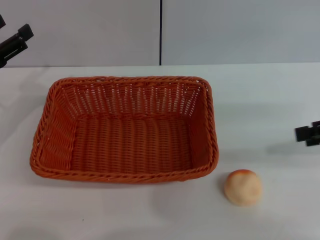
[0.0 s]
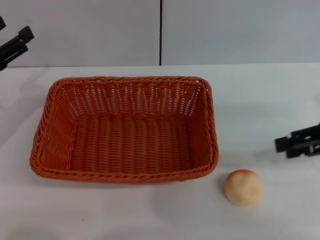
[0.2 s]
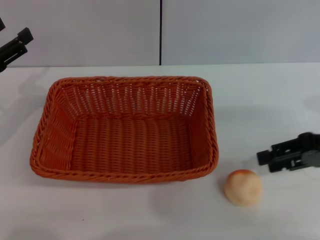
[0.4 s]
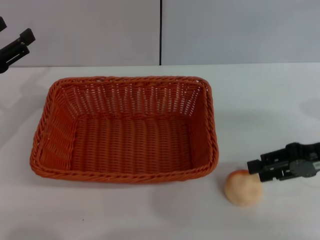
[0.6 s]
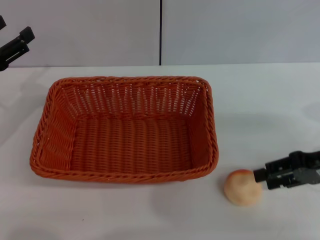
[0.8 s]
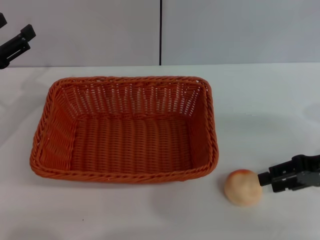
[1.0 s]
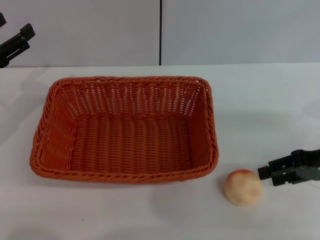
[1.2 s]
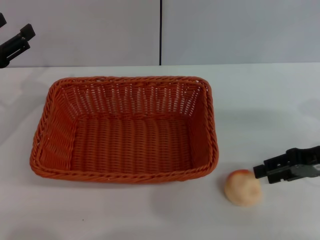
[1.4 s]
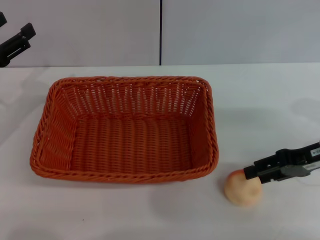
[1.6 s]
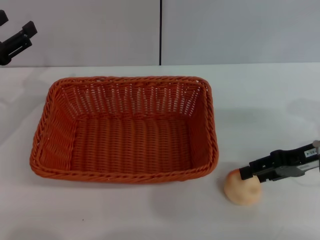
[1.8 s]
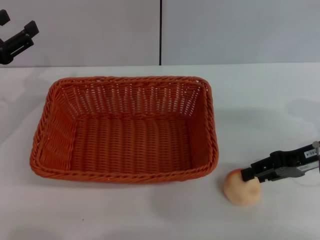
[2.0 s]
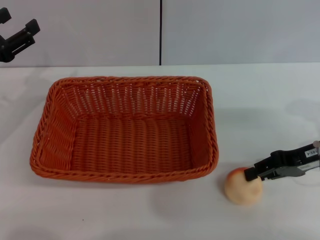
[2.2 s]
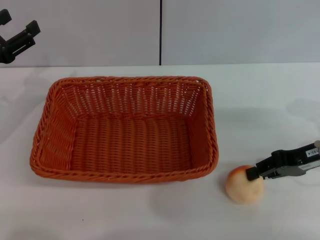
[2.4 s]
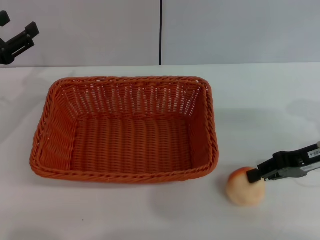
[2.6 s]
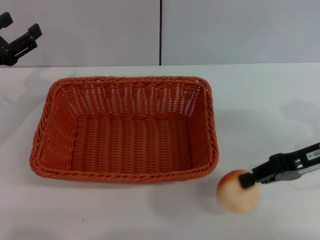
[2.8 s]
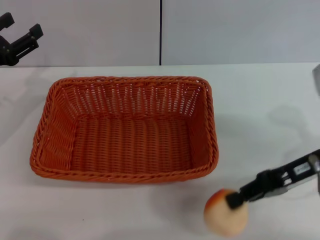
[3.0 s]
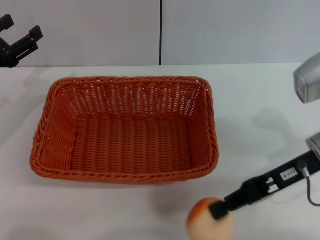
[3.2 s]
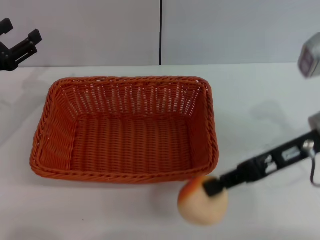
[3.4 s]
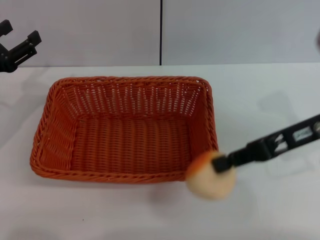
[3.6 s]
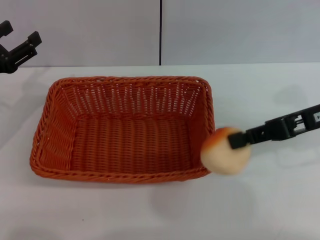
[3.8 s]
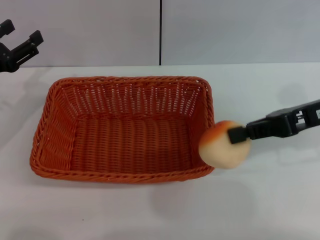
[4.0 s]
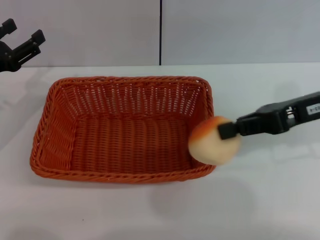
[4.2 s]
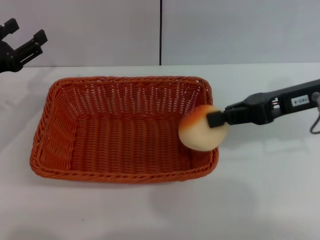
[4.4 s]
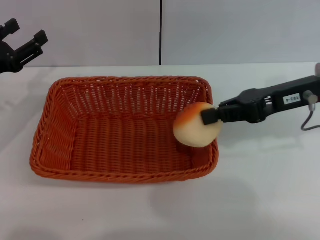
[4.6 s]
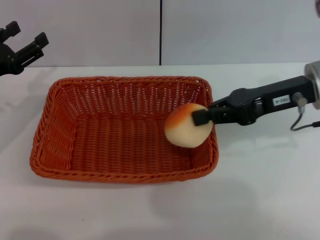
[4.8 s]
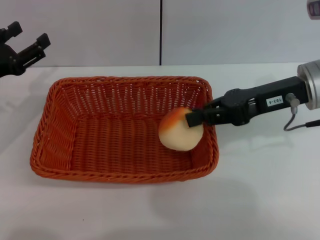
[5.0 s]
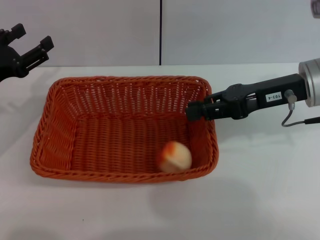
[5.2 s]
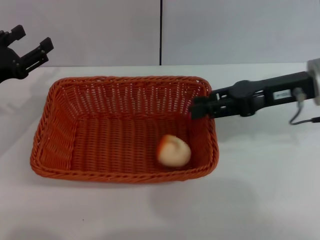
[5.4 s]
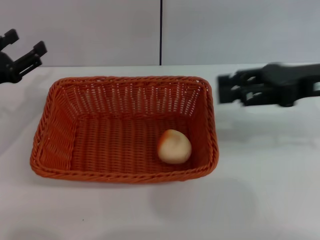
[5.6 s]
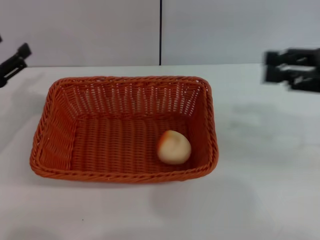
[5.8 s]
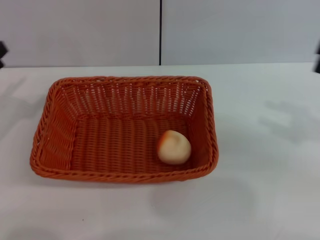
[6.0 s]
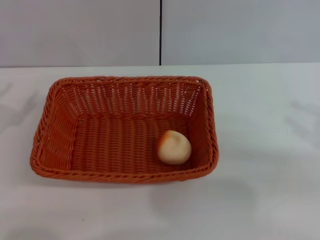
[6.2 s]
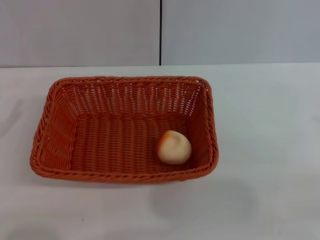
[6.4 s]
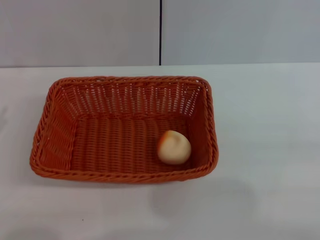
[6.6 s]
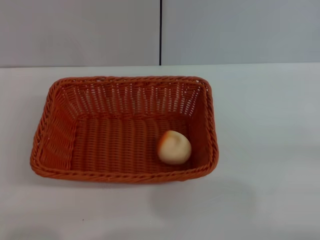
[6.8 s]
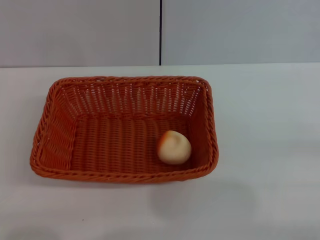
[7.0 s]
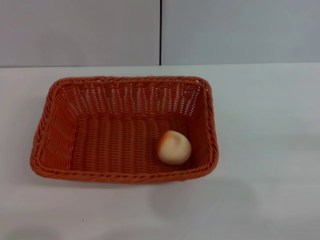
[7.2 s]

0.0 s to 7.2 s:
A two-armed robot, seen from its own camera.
Step, 0.0 to 3.4 s: Pick up the egg yolk pastry with the right gripper.
Step, 3.6 to 5.6 s: Place the egg yolk pastry into the basket with the right gripper.
0.0 to 1.4 s: The right gripper goes roughly 10 cm downward.
1.4 to 2.8 s: The right gripper closes up.
2.8 to 4.4 s: The right gripper is displaced upward by roughly 5 cm.
4.4 to 5.8 s: The right gripper goes approximately 5 cm to the right, and opens.
5.8 to 7.2 s: The left gripper goes roughly 10 cm backward, while the right gripper heads downward, backward and to the right, covering approximately 20 cm.

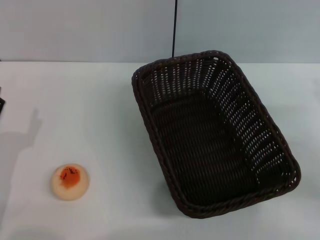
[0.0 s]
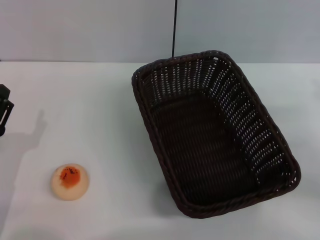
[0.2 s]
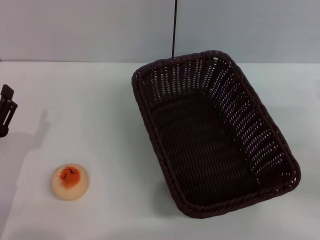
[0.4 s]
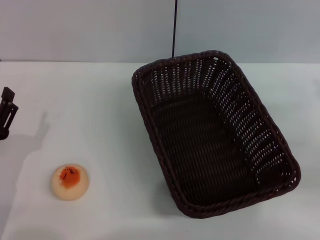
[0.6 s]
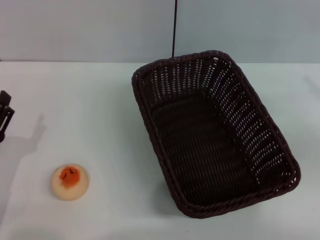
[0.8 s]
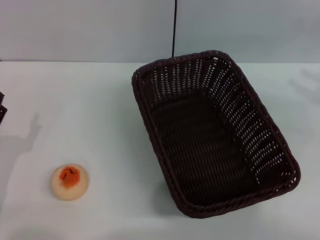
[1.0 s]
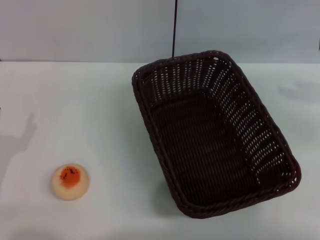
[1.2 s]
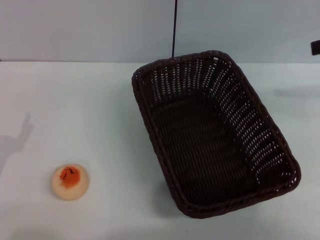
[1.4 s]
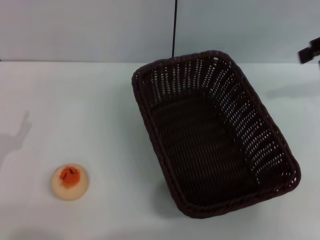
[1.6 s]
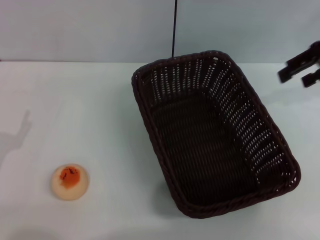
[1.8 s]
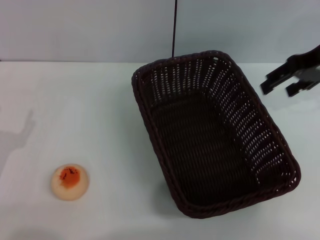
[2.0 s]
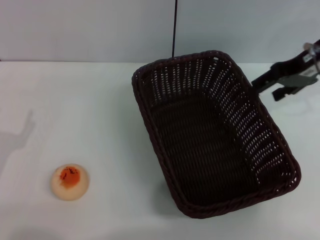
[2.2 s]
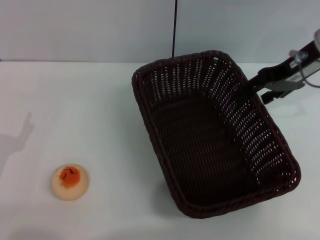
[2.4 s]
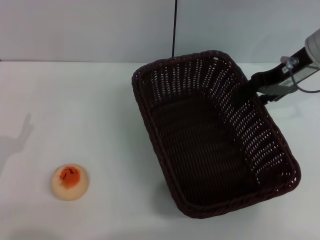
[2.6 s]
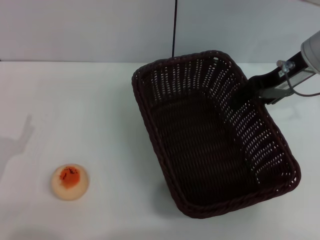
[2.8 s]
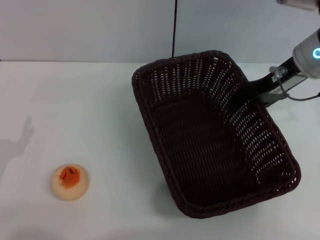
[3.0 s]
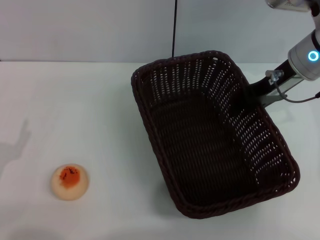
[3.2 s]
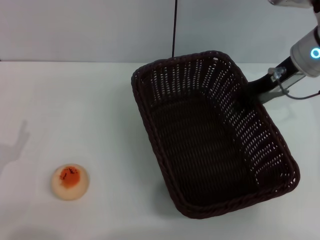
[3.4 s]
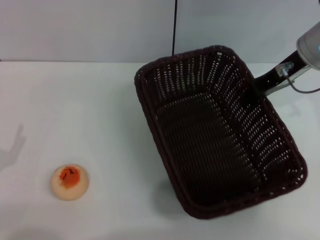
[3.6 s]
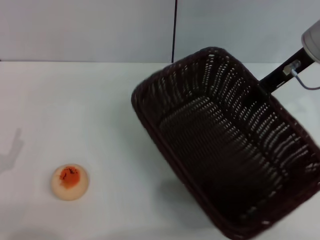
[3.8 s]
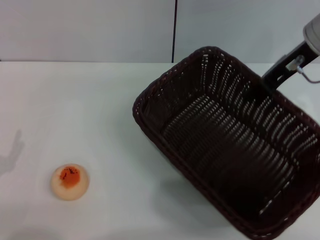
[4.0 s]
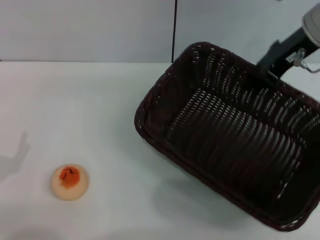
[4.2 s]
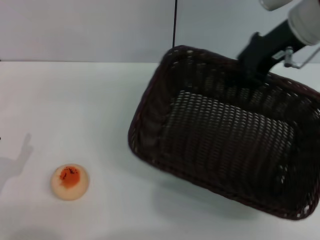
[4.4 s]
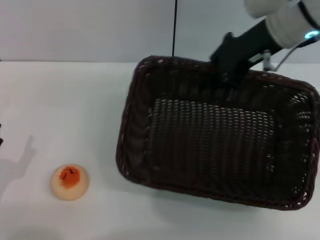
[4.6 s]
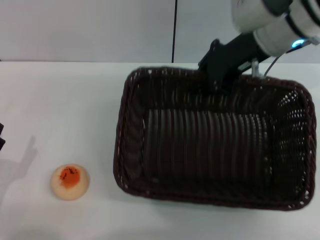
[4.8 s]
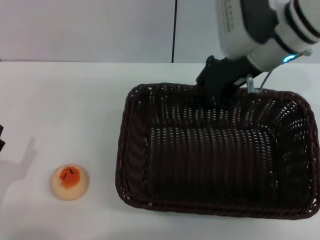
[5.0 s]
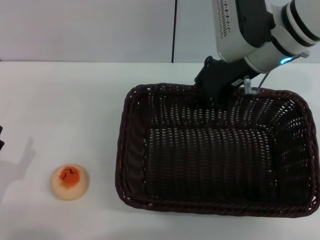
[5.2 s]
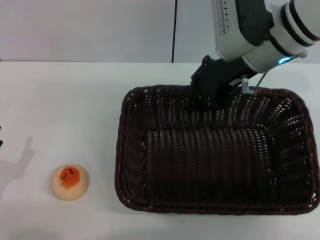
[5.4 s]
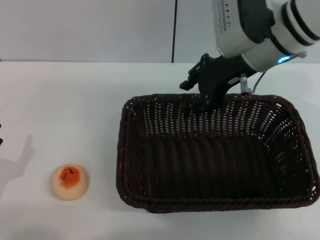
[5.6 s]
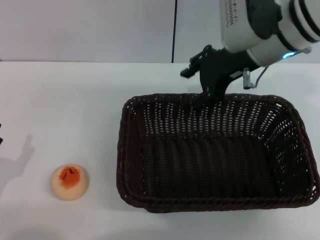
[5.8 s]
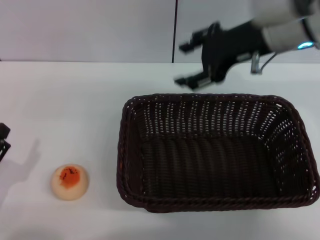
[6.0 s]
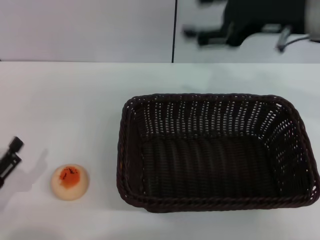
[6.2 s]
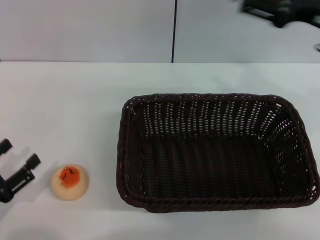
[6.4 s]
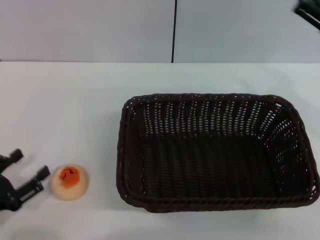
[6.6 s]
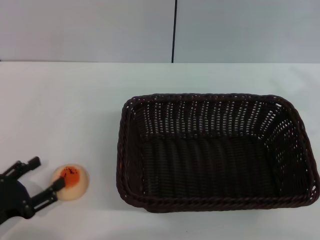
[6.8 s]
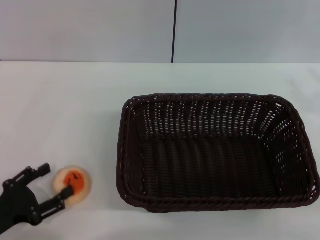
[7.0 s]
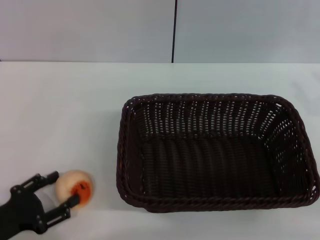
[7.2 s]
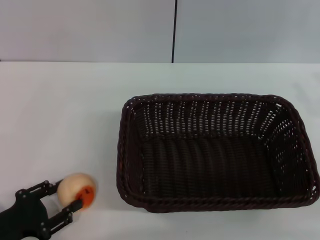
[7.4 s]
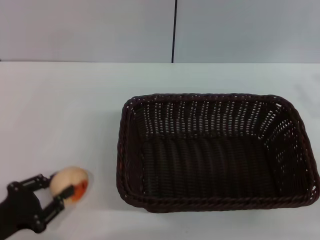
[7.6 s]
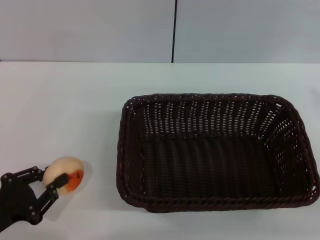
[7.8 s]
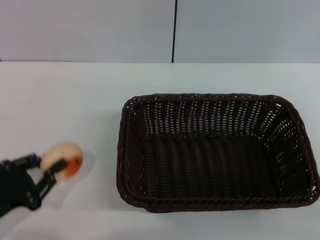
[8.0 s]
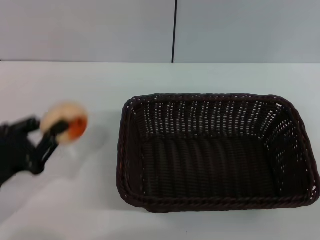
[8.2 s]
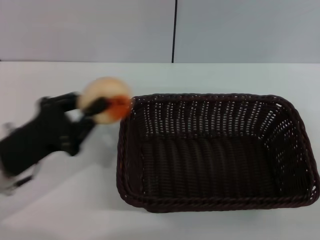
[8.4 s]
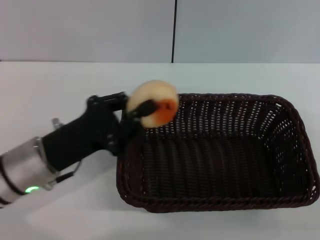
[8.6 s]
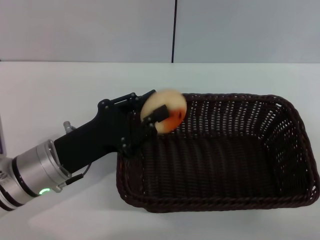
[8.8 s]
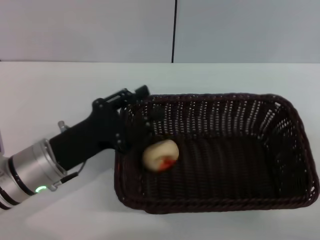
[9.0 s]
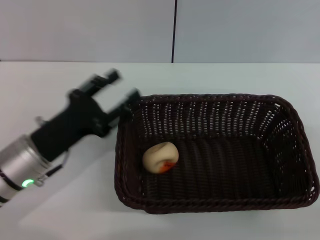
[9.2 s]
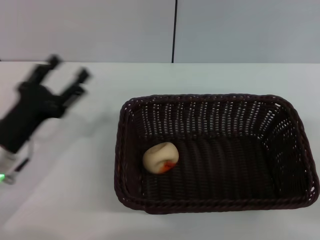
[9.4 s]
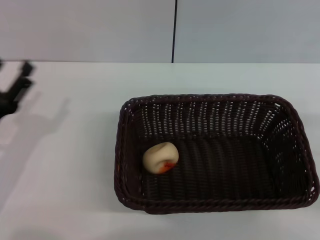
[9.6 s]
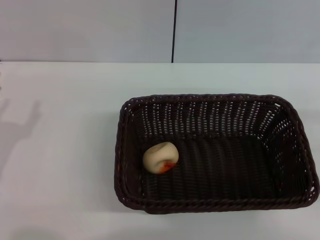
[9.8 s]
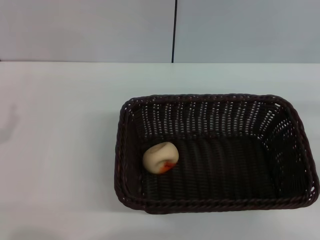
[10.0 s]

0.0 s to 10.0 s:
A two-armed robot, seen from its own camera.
Step, 0.0 to 5.8 s: Move the basket to the center of view with the right gripper.
Step, 6.2 to 8.0 s: Pick up the egg yolk pastry with the left gripper.
Step, 8.2 to 9.0 s: Place the egg yolk pastry into the basket with the left gripper.
0.0 to 1.4 s: The right gripper heads upward and forward, covering about 20 cm.
1.4 to 2.8 s: The right gripper goes roughly 15 cm to the left and downward.
2.8 to 4.2 s: The right gripper changes place by some 5 cm, and closes up.
4.2 to 5.8 s: The right gripper moves to the left, roughly 5 cm, and opens its fingers.
5.8 to 7.2 s: The right gripper goes approximately 25 cm to the right and backward, and opens up.
7.2 to 8.6 s: The left gripper is displaced to the right, forward and upward by roughly 15 cm, and closes its fingers. Meanwhile the right gripper moves some 5 cm.
8.6 to 10.0 s: The right gripper travels to the right and forward by approximately 10 cm. Meanwhile the left gripper is displaced to the left by some 15 cm, and opens its fingers.

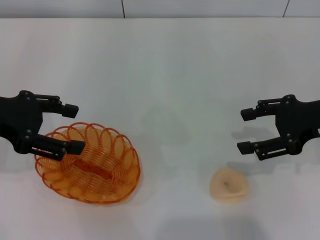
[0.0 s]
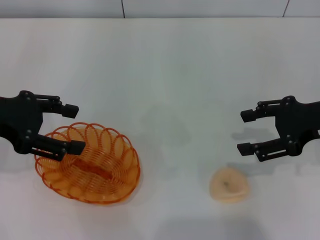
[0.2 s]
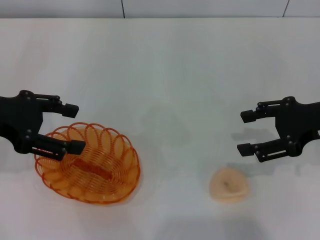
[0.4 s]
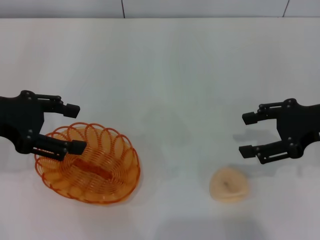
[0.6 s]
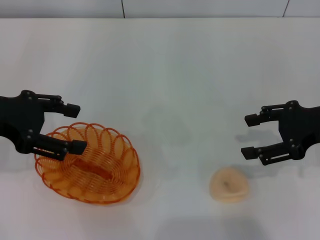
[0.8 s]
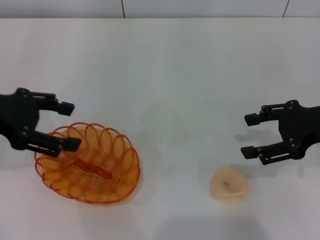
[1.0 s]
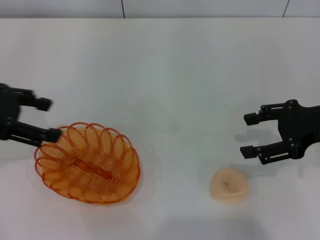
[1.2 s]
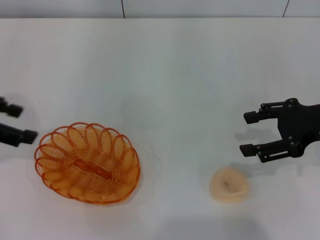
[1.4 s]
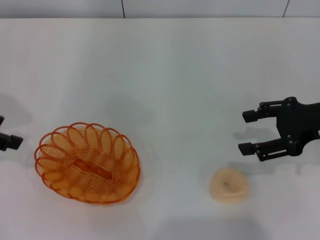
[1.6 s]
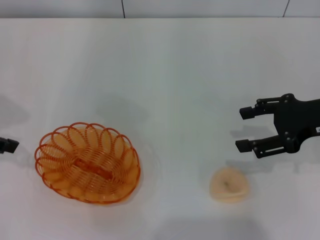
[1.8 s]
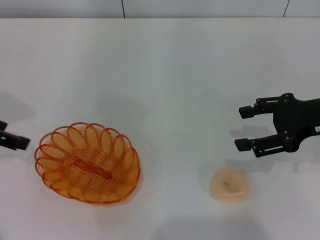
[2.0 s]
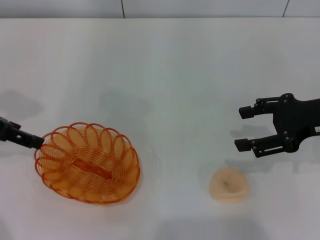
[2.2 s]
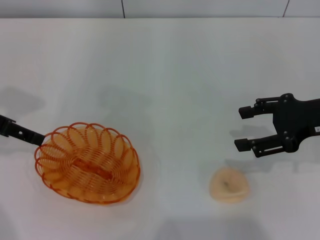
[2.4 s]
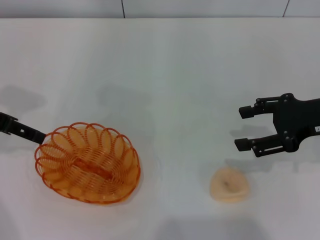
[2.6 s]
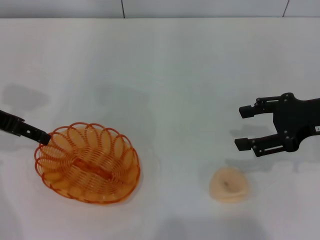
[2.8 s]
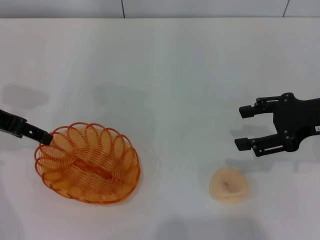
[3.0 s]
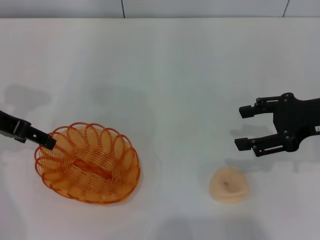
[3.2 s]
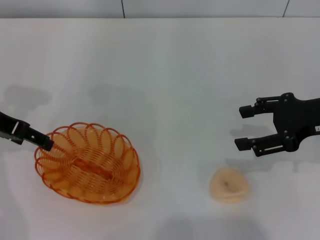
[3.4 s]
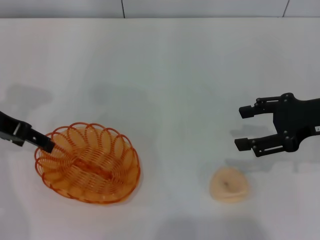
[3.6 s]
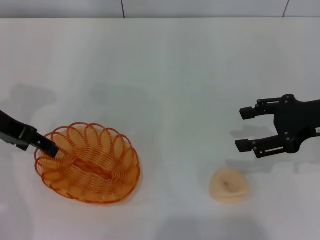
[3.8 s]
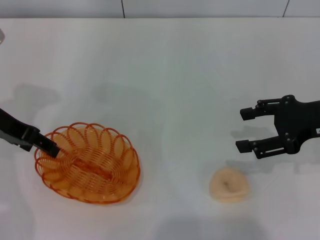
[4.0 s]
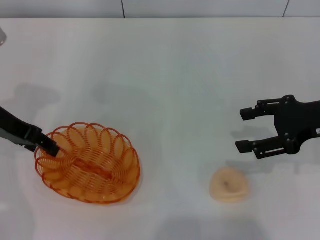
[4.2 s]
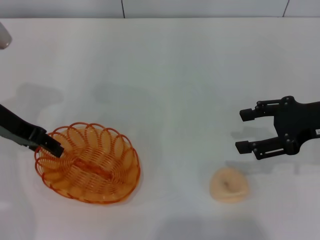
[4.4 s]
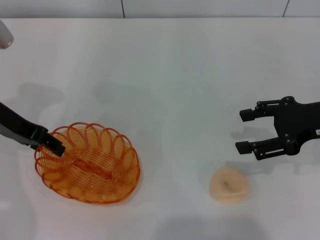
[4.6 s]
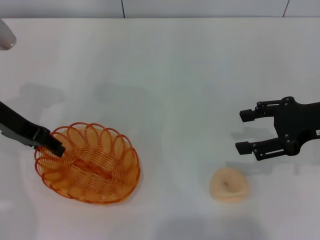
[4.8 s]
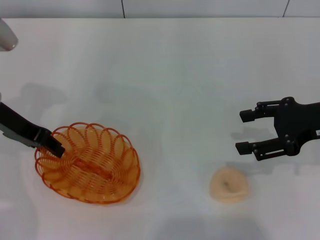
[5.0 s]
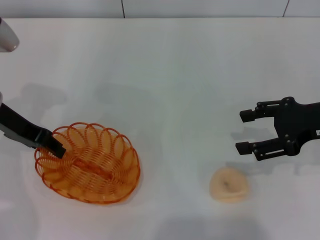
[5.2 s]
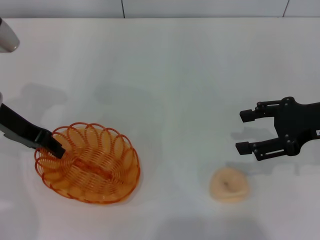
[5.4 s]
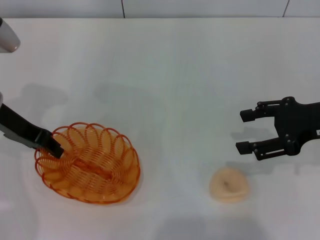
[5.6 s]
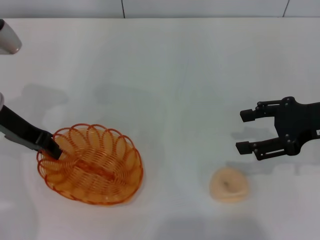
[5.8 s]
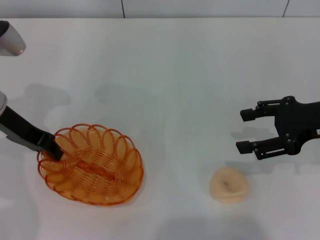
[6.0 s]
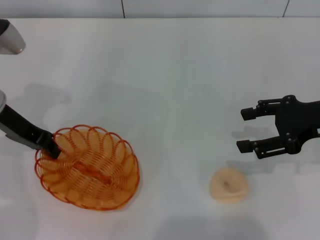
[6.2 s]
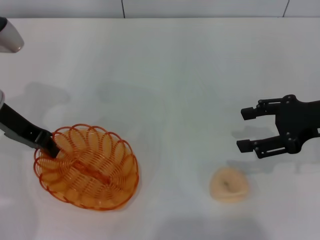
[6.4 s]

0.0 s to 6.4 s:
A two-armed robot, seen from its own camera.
0.0 to 1.6 s: The left gripper changes place by about 5 cm.
1.6 to 3.2 s: The left gripper ends up about 5 cm from where it was.
3.2 to 4.8 s: The left gripper closes its fingers.
4.8 to 6.4 s: The left gripper closes up.
